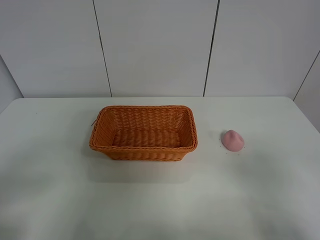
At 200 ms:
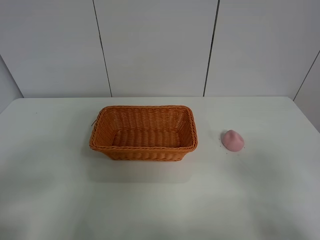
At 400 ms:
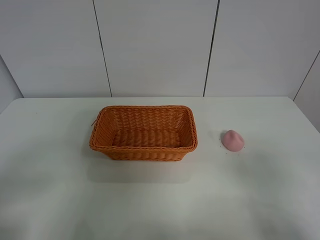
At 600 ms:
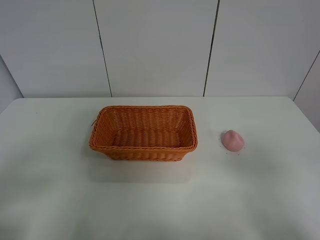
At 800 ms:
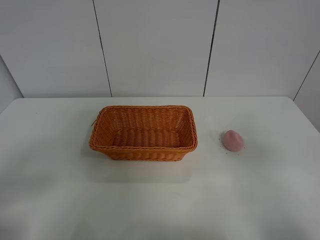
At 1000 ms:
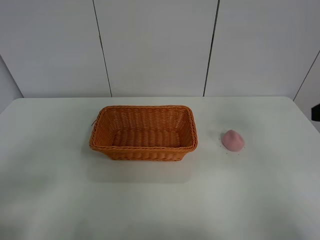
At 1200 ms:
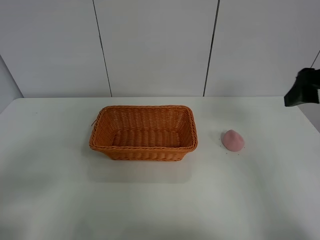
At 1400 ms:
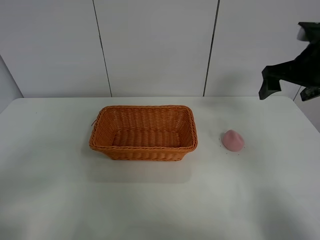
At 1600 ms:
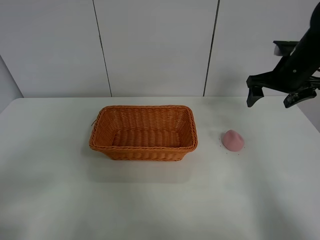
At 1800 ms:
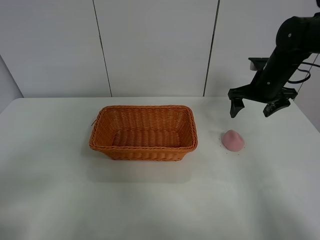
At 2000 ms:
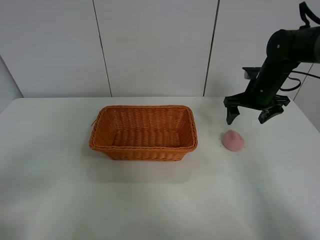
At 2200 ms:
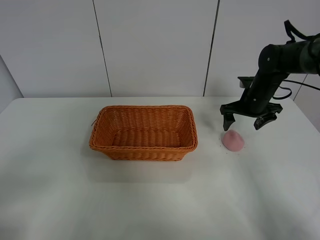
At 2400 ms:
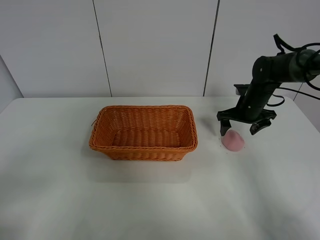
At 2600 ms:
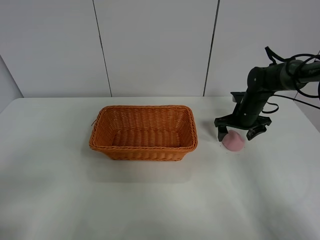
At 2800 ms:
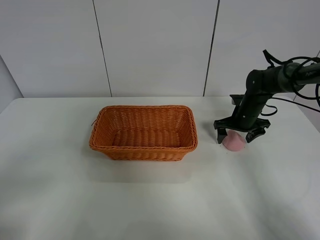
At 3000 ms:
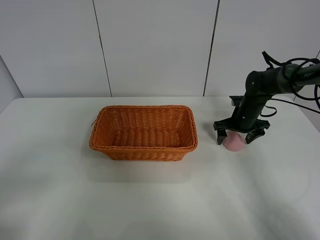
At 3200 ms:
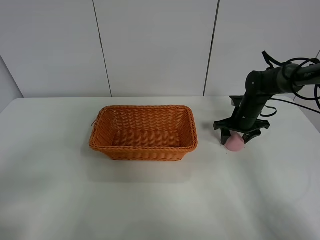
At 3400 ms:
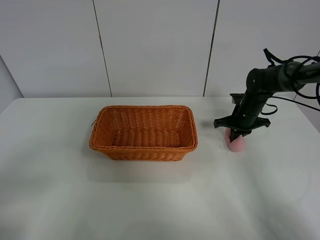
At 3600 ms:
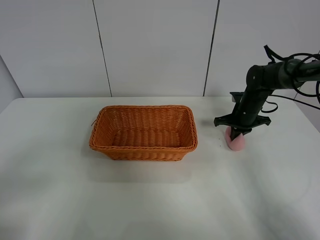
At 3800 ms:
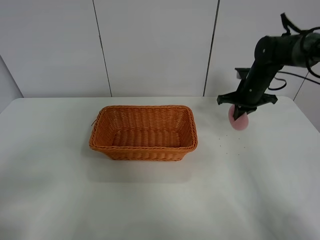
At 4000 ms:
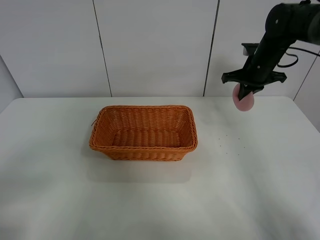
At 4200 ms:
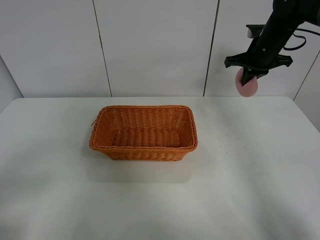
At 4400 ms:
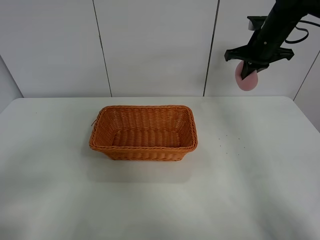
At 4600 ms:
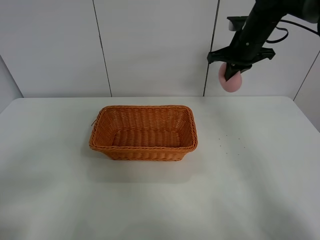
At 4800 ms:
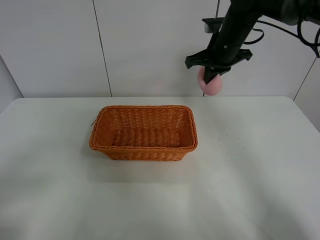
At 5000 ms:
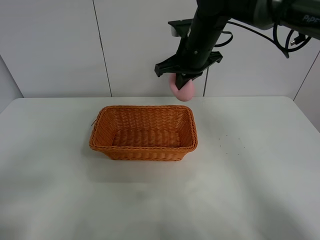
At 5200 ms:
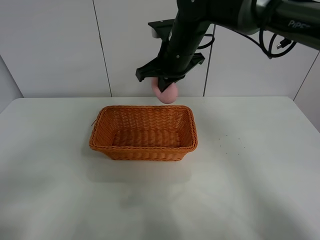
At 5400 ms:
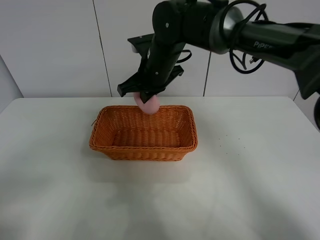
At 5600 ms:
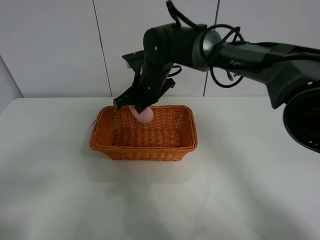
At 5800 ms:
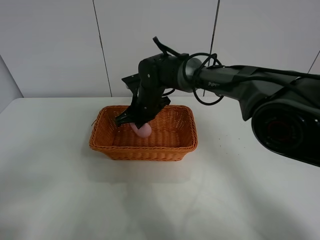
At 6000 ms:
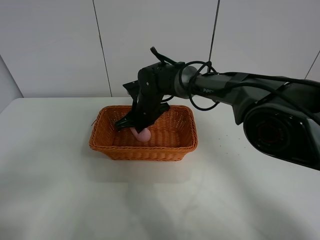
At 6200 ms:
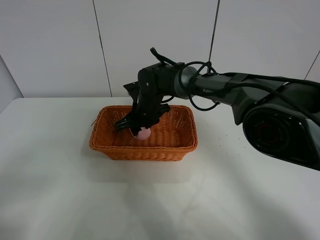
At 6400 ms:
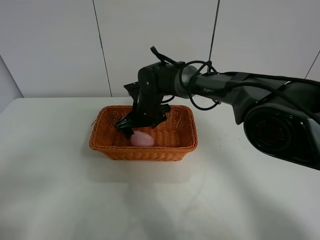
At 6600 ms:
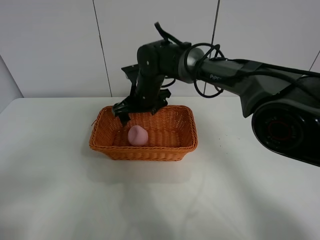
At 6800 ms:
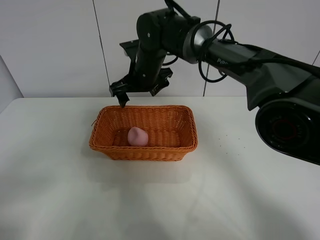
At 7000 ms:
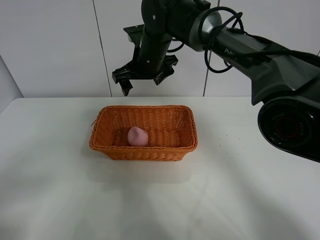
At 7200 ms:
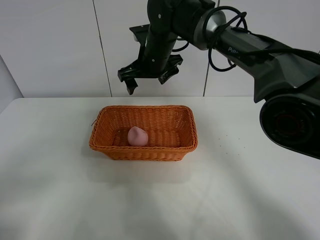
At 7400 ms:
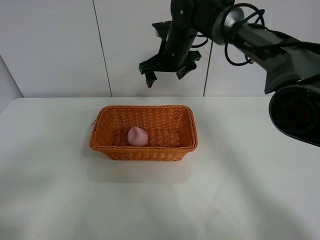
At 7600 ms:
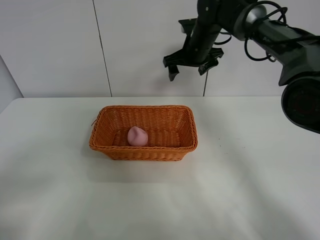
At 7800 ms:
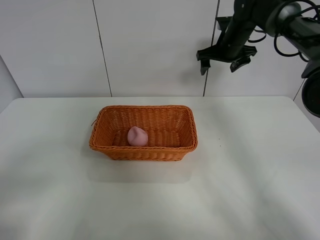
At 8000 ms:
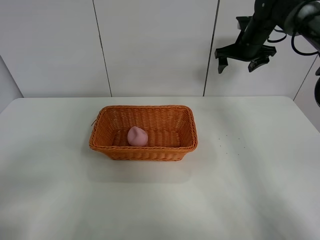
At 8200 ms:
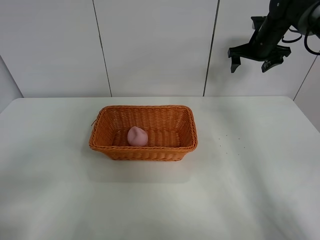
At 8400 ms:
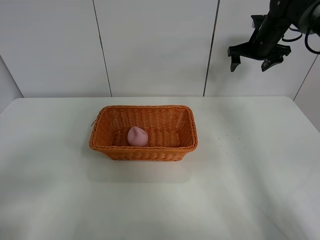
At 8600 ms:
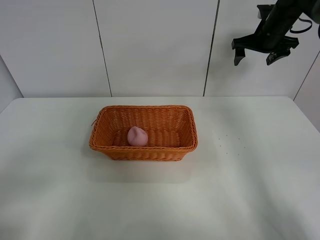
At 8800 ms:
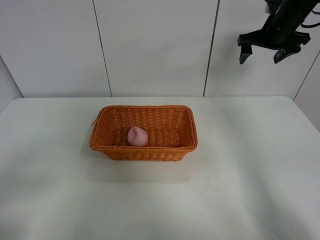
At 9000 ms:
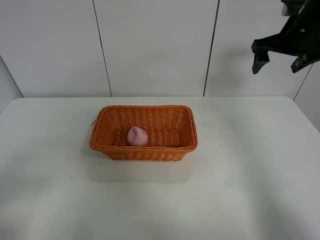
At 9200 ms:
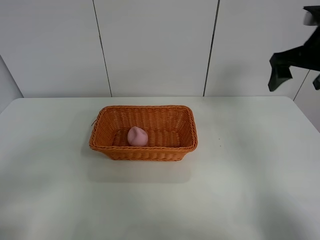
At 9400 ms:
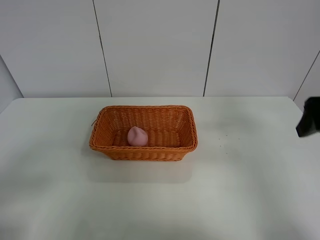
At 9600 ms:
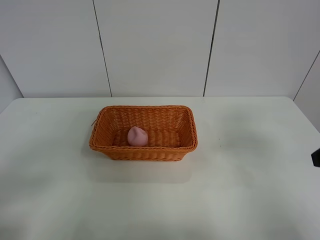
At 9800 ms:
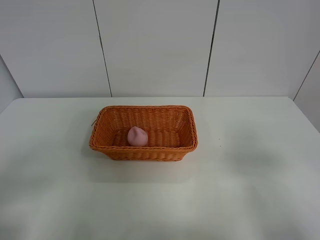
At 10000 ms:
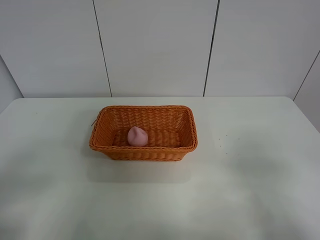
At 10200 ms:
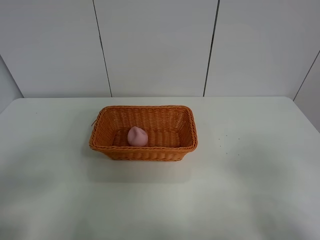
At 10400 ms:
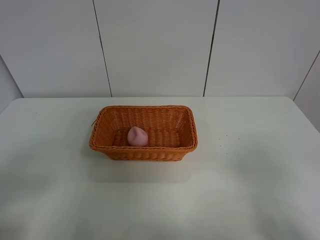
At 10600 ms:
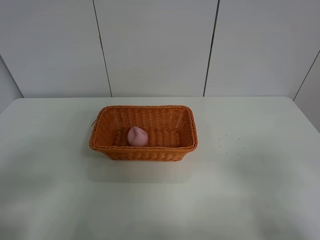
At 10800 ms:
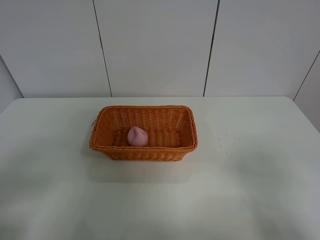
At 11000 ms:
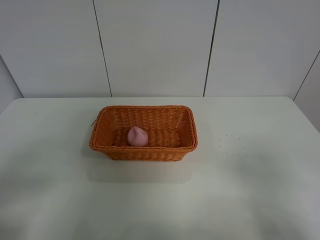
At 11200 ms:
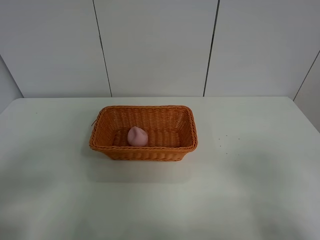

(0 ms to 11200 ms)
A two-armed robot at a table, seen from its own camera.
Step, 0 ms - 3600 ms: Grasp the peach with right gripper.
Step, 3800 ms - 6800 ms: Place the peach in the basket with right gripper.
0 ms - 1600 ms: The right gripper moves forward, about 35 cm.
1600 ms - 3200 ms: The right gripper heads downward, covering roughly 15 cm.
3200 ms - 4800 ms: The right gripper goes some 20 cm upward and to the left, and closes its fingers.
4800 ms - 6400 ms: The right gripper travels to the left and downward by approximately 25 cm, and opens.
6400 ms - 8000 ms: The right gripper travels to the right, upward and forward by about 30 cm.
8000 ms - 9600 ms: The right gripper heads backward, covering approximately 40 cm.
9600 ms - 11200 ms: The right gripper moves backward, about 10 cm.
